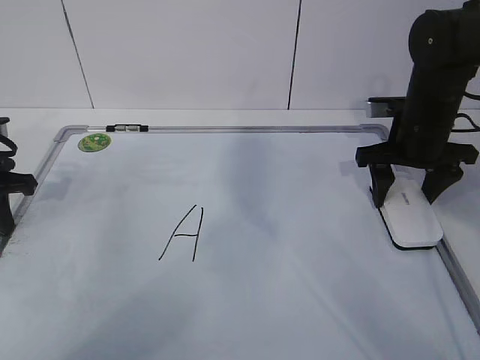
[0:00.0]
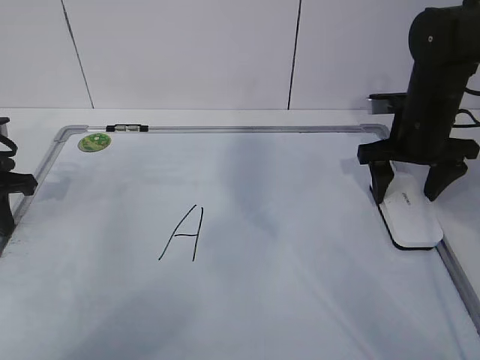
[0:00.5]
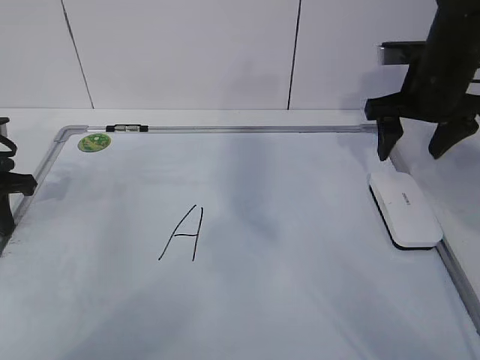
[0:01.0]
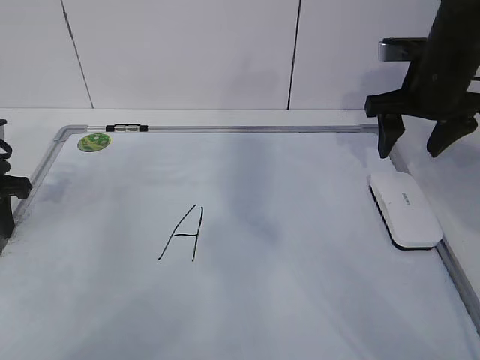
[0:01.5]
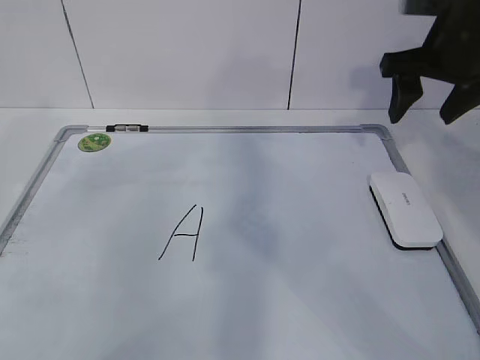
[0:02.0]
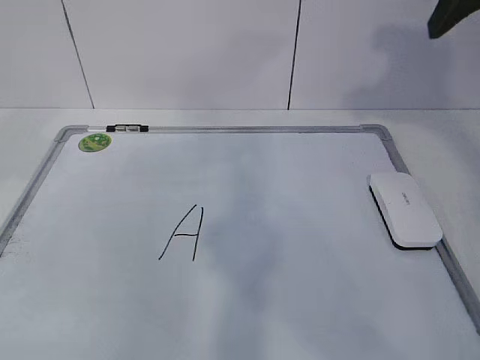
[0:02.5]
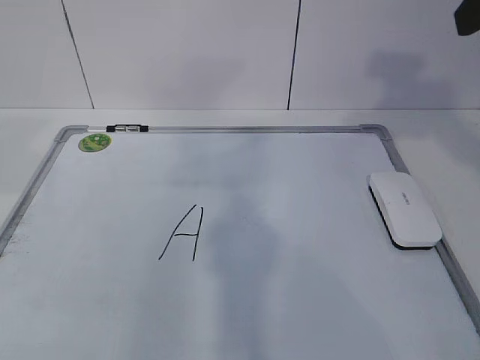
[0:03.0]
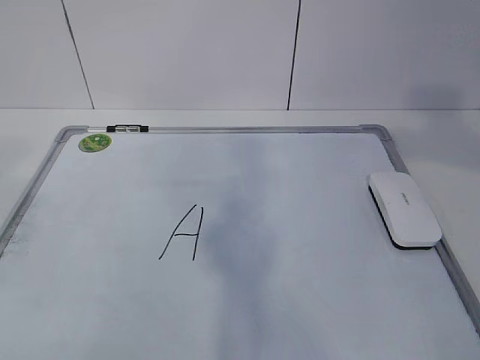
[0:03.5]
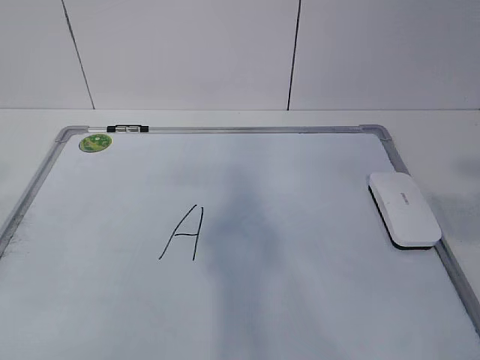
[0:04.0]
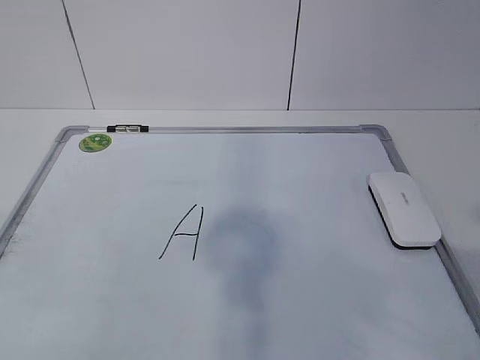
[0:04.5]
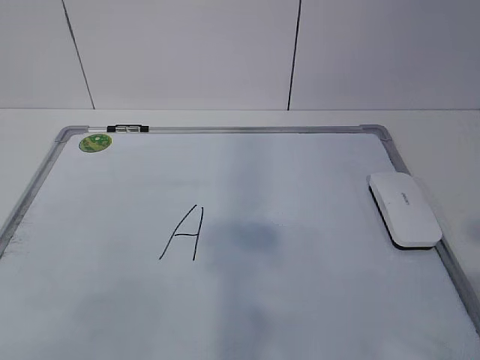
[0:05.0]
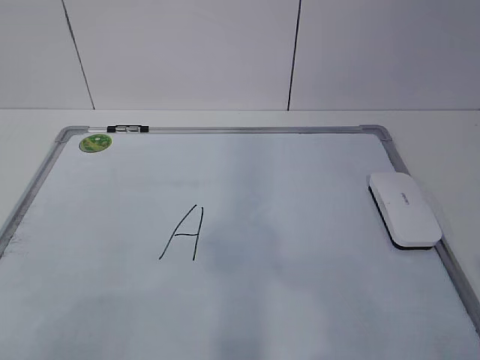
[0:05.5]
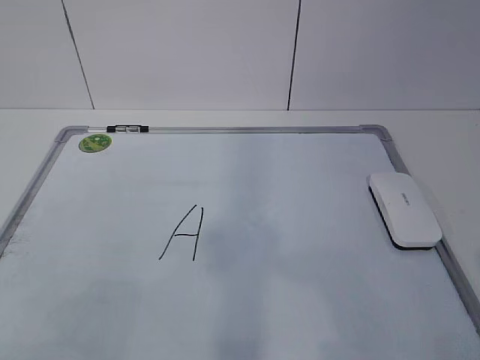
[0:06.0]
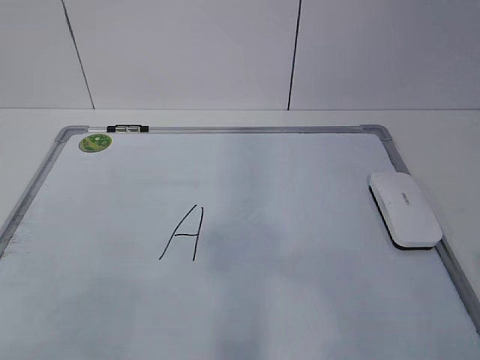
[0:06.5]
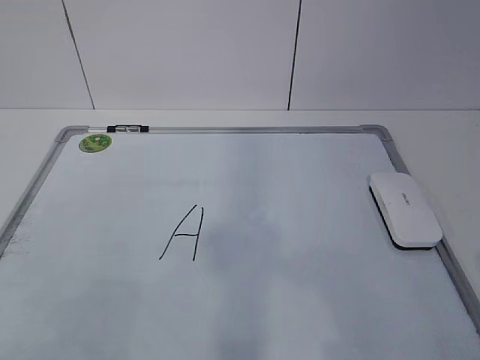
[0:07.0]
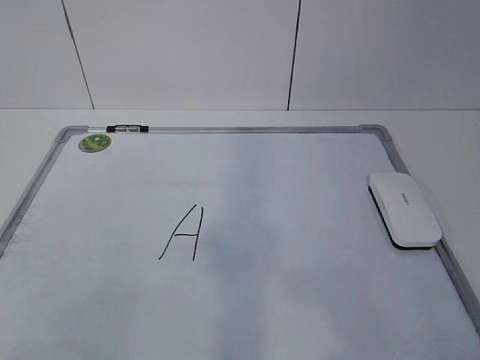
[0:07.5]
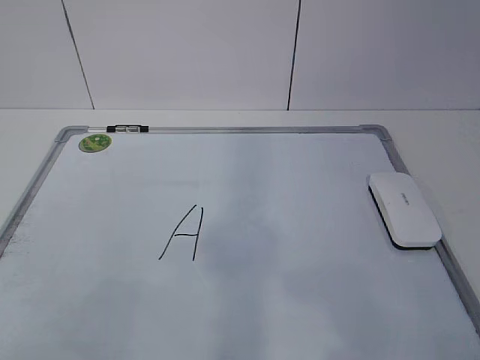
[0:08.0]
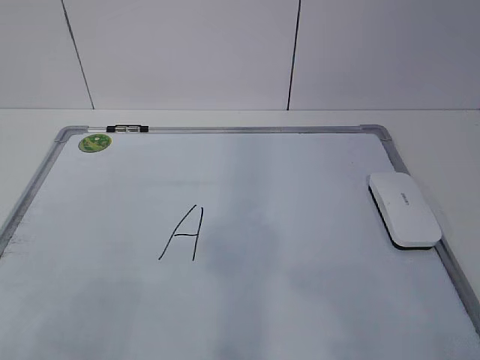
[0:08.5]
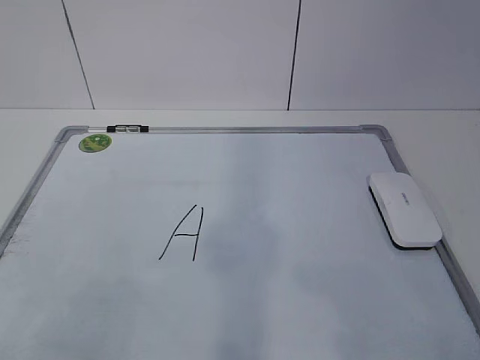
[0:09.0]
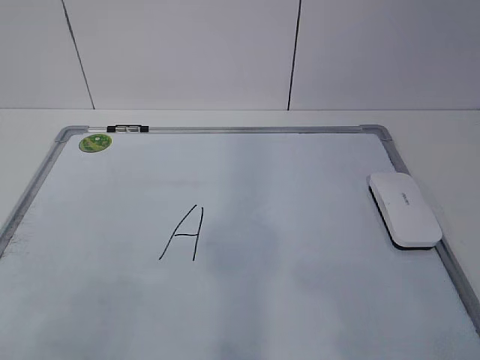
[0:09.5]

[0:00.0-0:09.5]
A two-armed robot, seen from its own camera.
Task of the whole recording: pick up the eraser on the blackboard and erase the letter "a".
0:00.0 to 0:02.0: Both grippers move upward, roughly 10 cm. The left gripper opens its fingers. The right gripper opens and closes again.
0:02.0 to 0:04.0: The left gripper heads backward and upward, covering about 35 cm, while the right gripper shifts roughly 35 cm backward.
0:04.0 to 0:05.5: The left gripper heads downward, covering approximately 15 cm.
